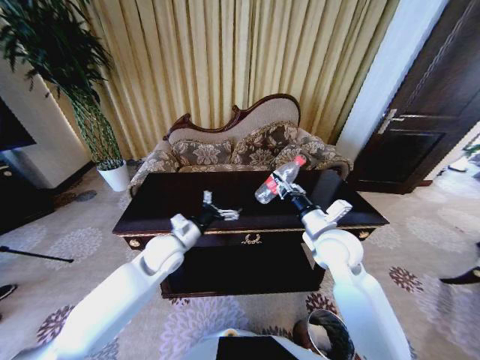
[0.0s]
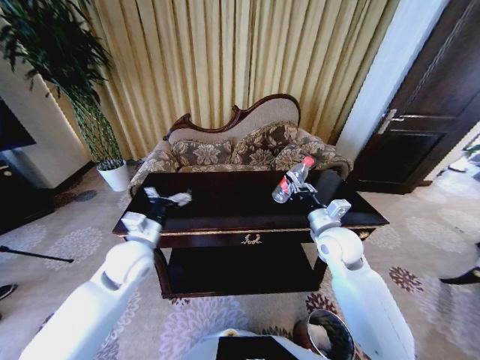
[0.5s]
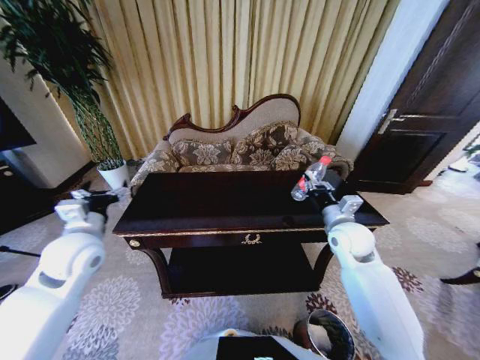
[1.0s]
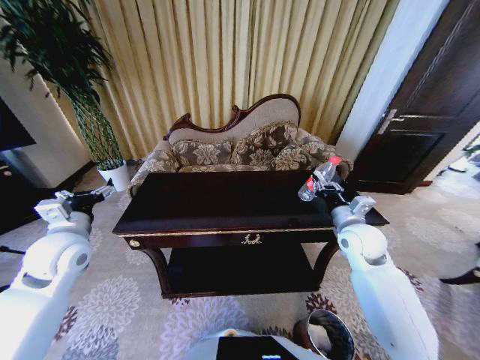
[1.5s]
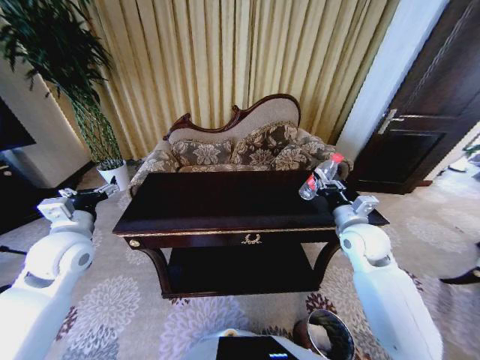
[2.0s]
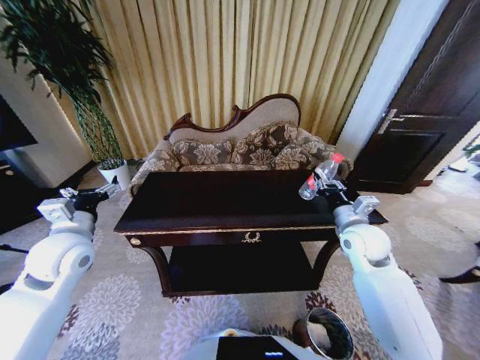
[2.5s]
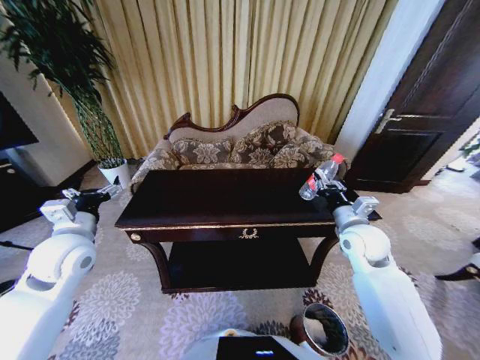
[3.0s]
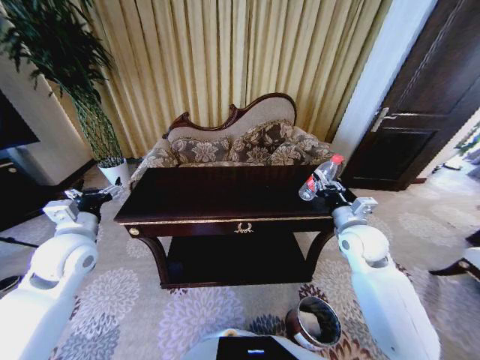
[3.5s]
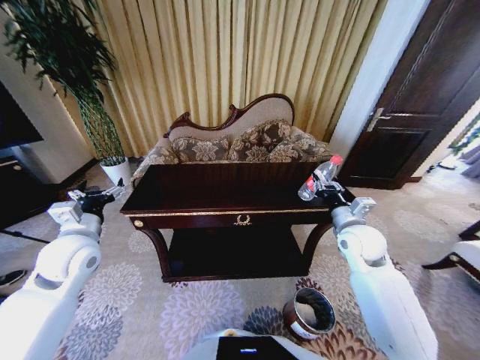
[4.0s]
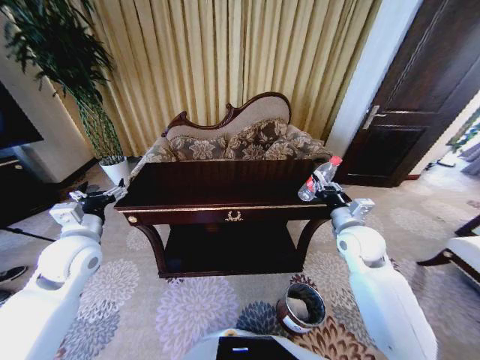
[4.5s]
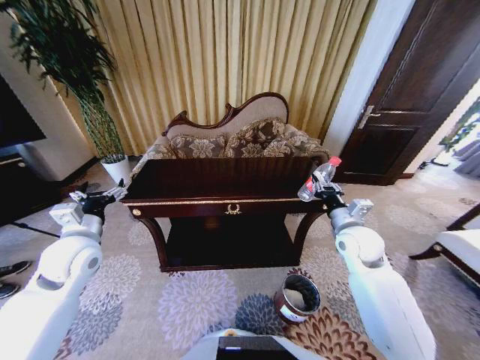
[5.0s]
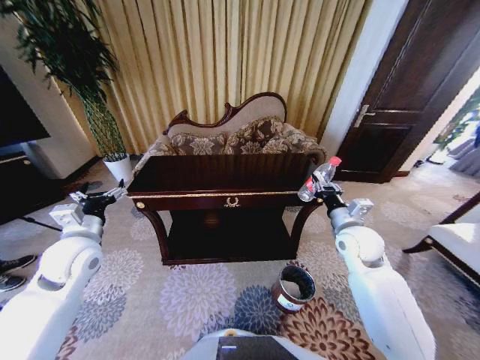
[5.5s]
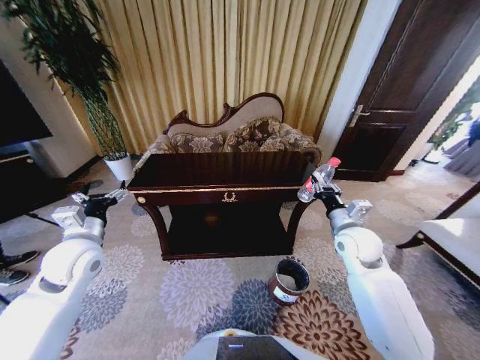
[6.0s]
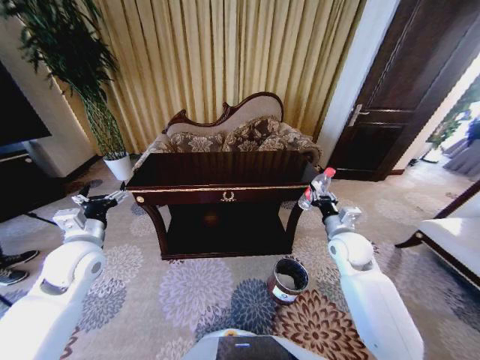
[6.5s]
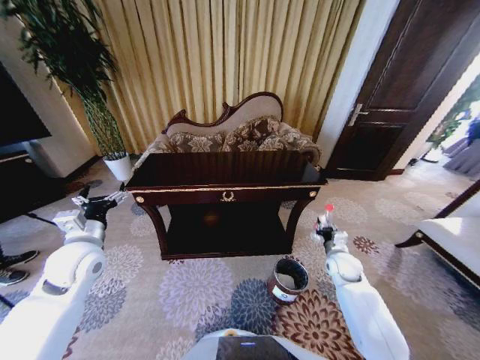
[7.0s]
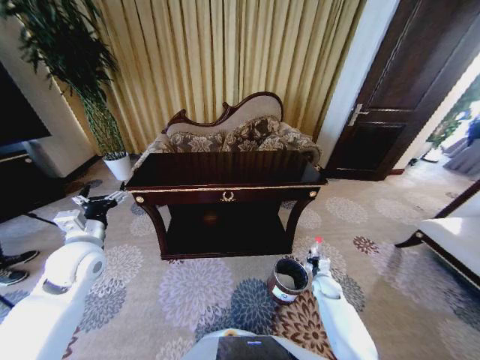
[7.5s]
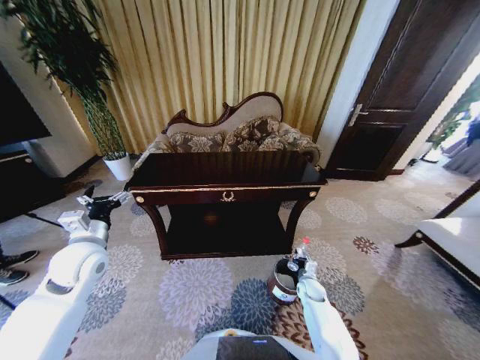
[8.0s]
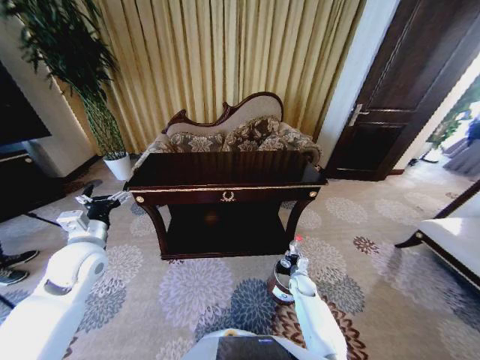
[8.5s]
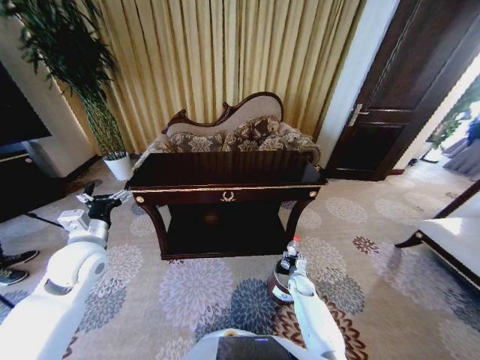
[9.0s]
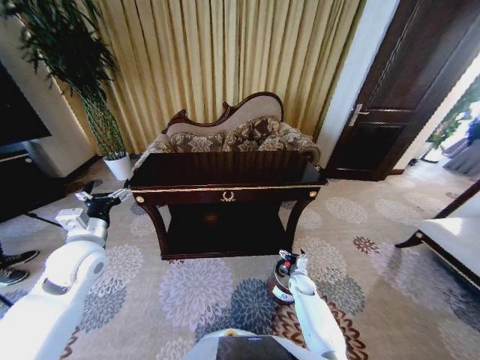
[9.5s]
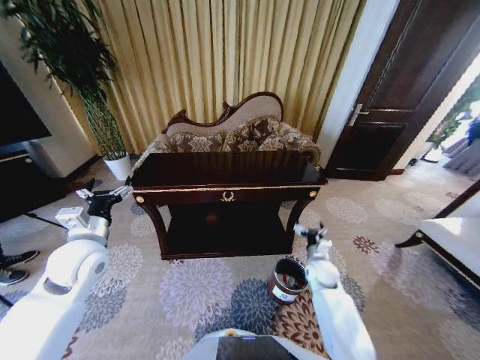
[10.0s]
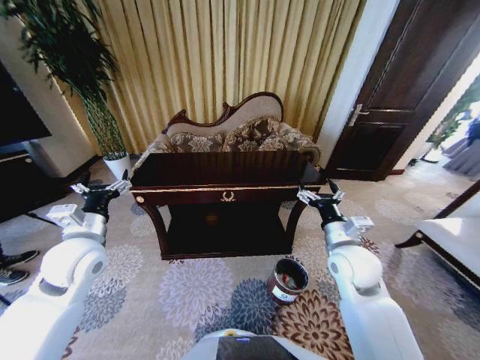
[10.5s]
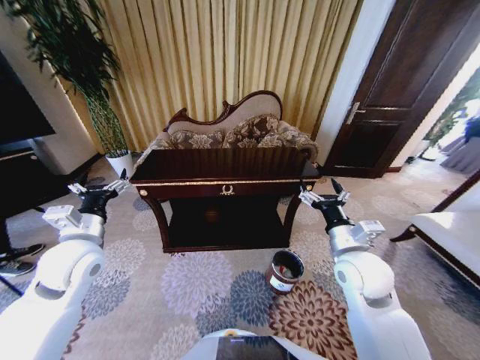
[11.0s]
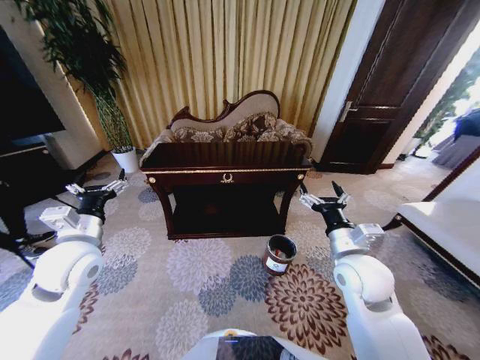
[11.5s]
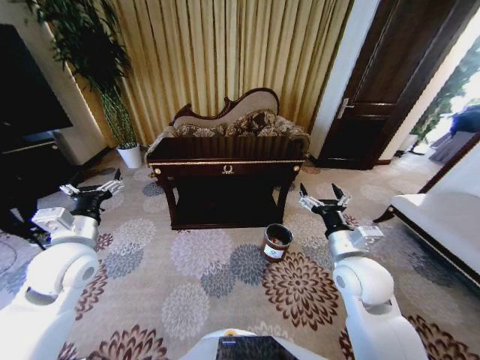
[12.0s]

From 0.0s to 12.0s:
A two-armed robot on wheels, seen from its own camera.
Task of the whole recording: Move to the front of the table and place the trash on the table into the trash bin.
From 0.0s to 2.0s: The right gripper goes about 10 cm to the right; the left gripper shifts approximately 20 cm to the left and upward.
From 6.0s to 8.0s: The right gripper heads downward, covering some 30 cm.
From 8.0s to 10.0s: The right gripper heads upward, covering some 15 cm, and opens.
From 10.0s to 12.0s: The right gripper shifts approximately 25 cm upward and backward.
